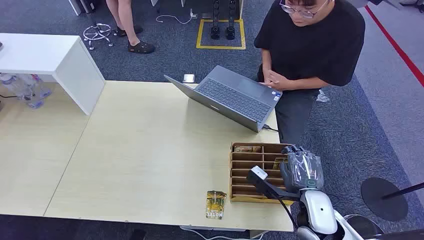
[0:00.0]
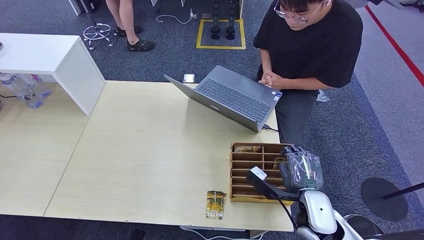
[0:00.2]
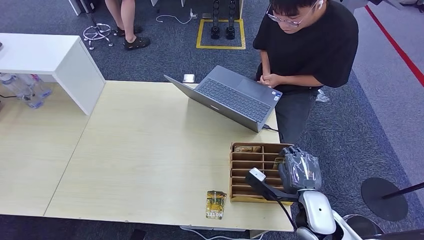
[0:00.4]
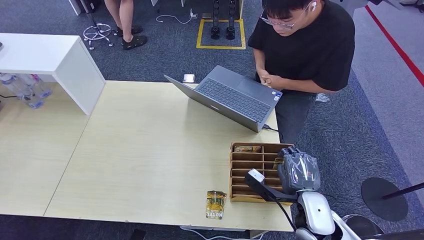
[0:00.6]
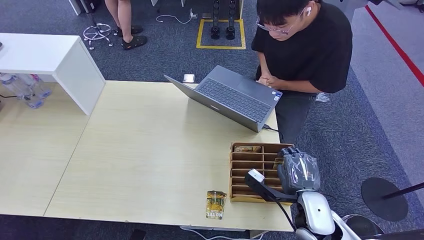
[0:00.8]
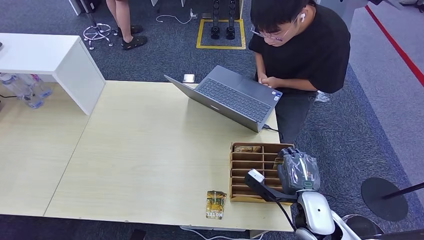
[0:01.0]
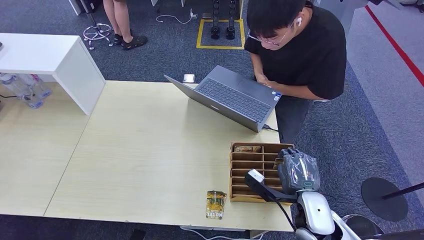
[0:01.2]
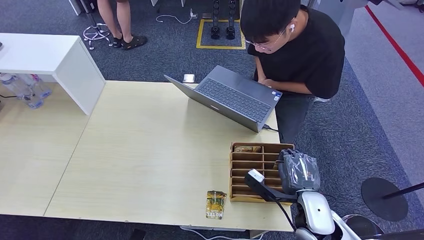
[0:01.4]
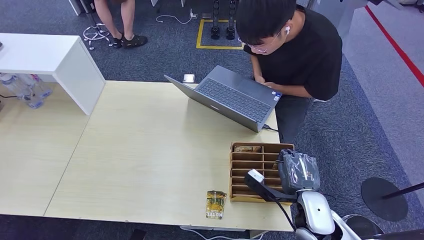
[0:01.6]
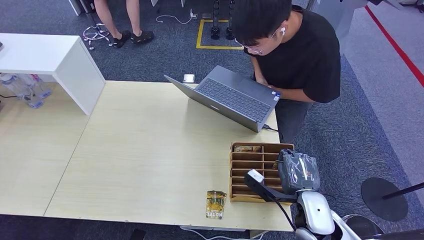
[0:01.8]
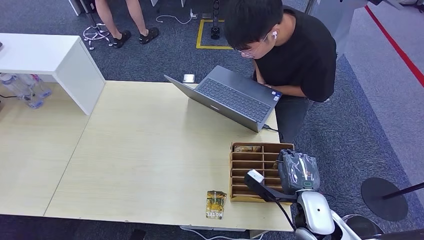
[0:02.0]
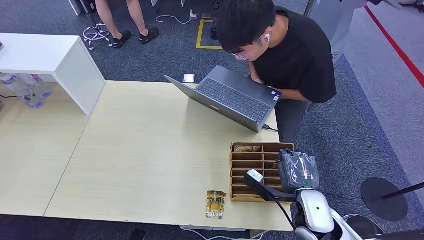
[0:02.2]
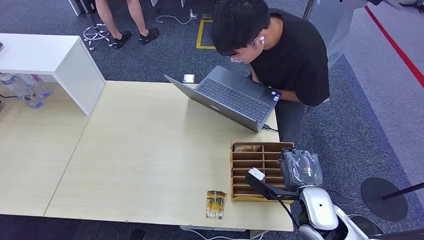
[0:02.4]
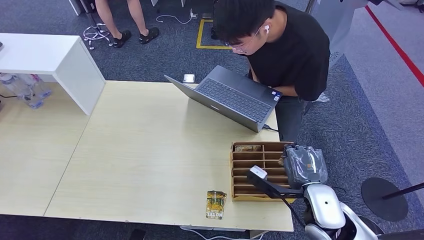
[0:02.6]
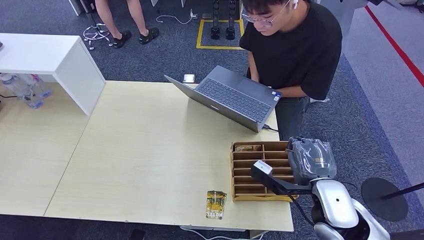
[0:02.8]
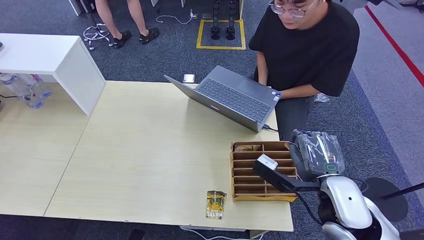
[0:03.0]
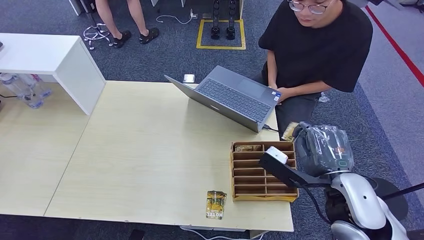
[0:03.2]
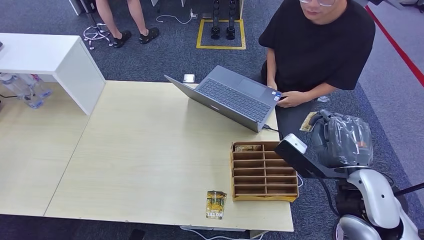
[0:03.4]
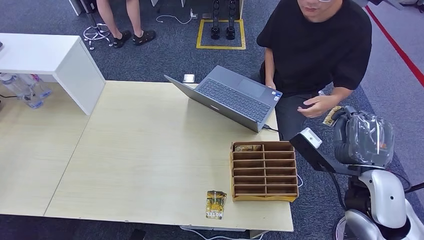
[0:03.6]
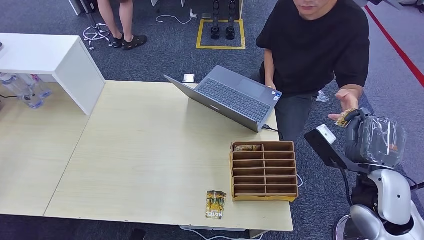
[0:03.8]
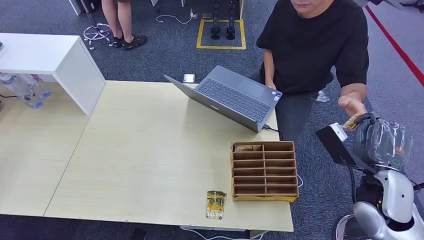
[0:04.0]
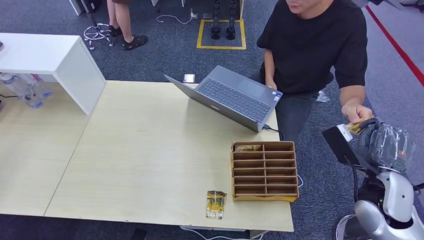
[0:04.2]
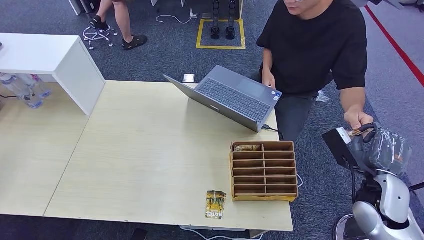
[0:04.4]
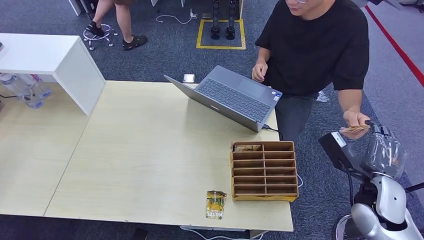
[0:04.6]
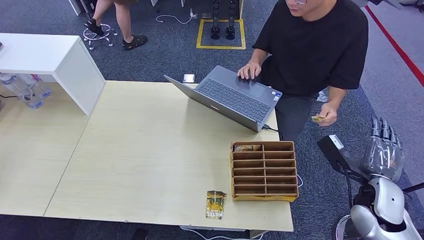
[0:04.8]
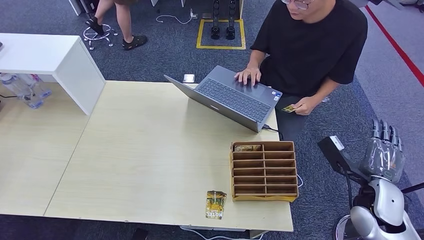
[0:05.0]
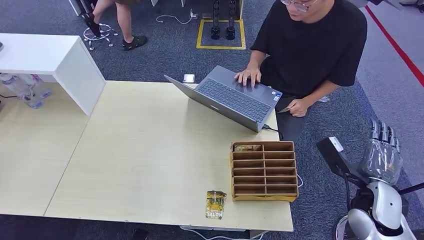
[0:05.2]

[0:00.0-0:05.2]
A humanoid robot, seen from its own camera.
Step, 0:00.0 to 0:02.6: Pick up the key card from the card box.
Step, 0:03.0 to 0:05.0: Hand the key card to the target.
0:01.8 to 0:03.4: The right hand heads upward, covering roughly 15 cm.
0:03.4 to 0:05.2: The right hand travels downward and to the right by approximately 15 cm.

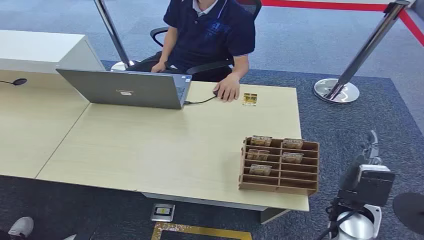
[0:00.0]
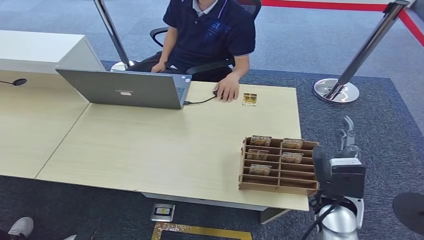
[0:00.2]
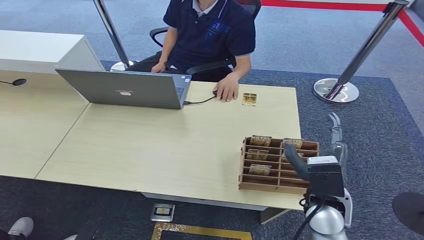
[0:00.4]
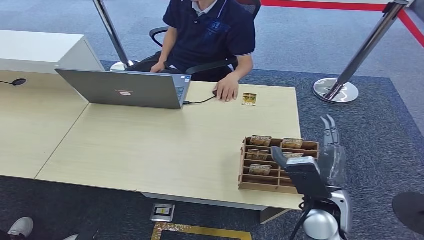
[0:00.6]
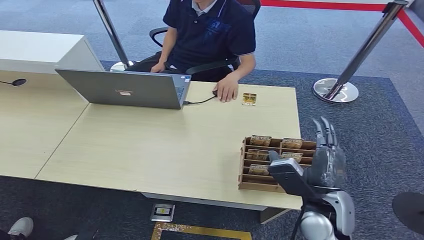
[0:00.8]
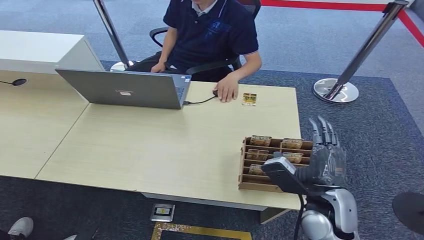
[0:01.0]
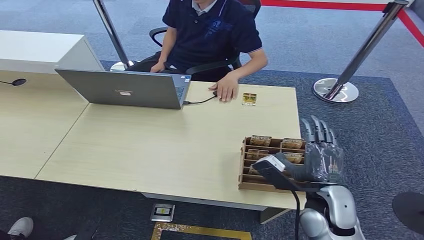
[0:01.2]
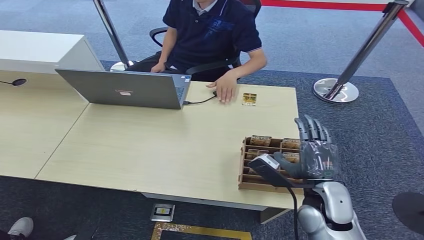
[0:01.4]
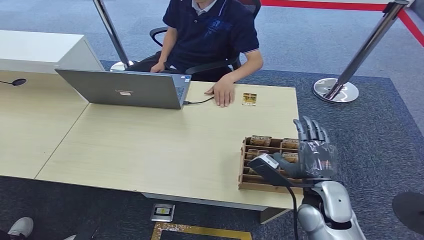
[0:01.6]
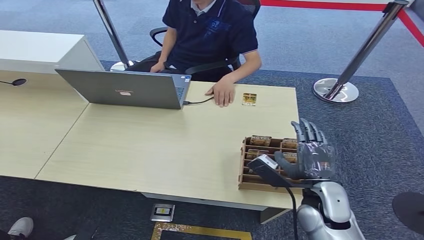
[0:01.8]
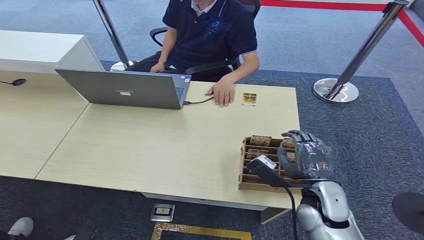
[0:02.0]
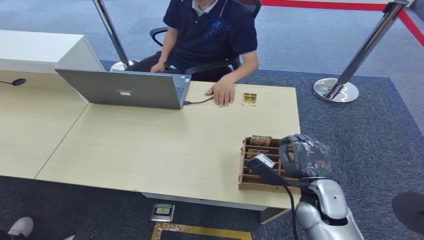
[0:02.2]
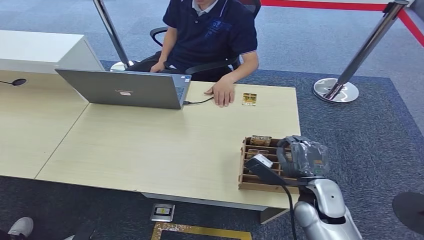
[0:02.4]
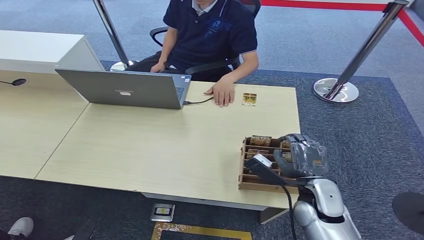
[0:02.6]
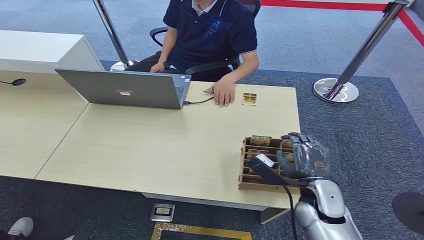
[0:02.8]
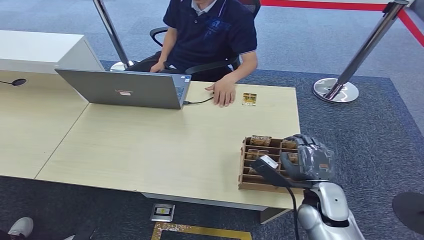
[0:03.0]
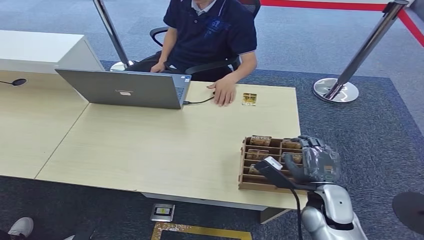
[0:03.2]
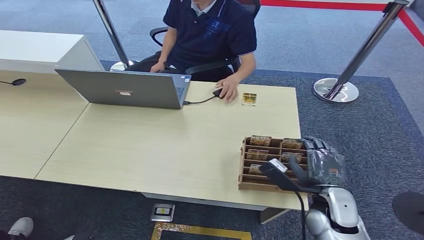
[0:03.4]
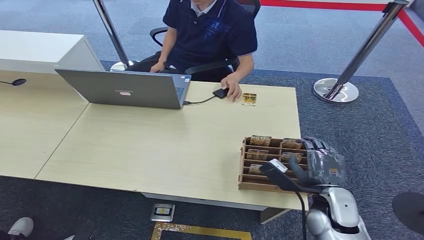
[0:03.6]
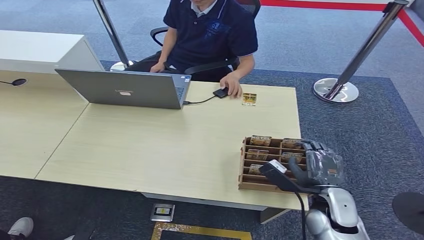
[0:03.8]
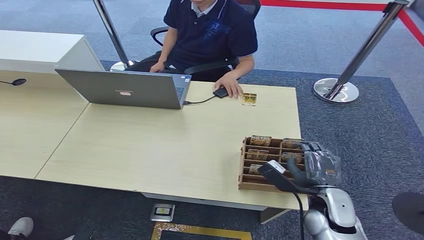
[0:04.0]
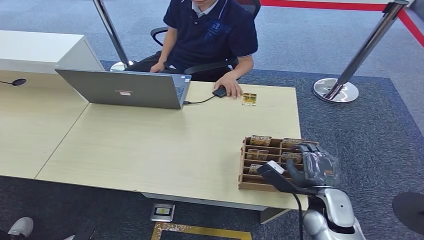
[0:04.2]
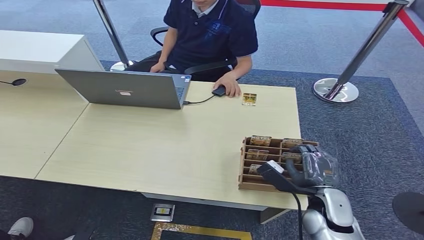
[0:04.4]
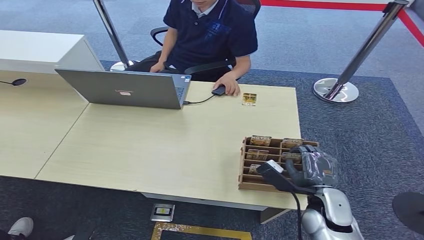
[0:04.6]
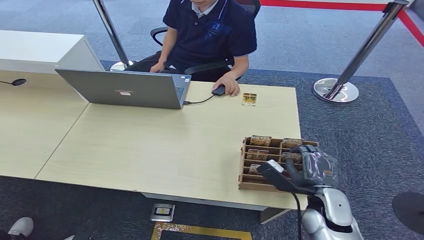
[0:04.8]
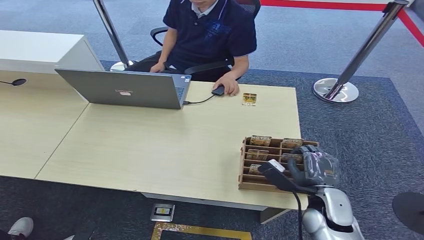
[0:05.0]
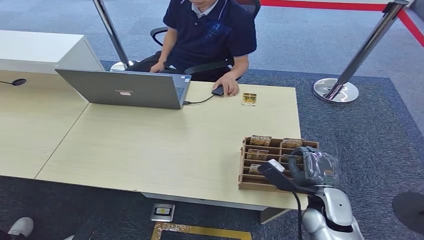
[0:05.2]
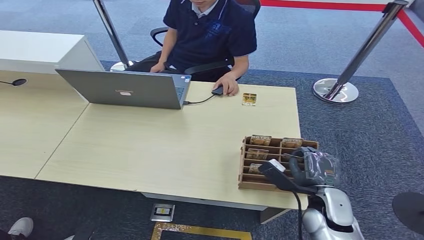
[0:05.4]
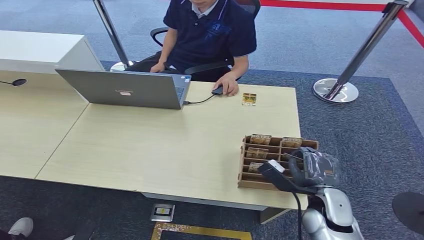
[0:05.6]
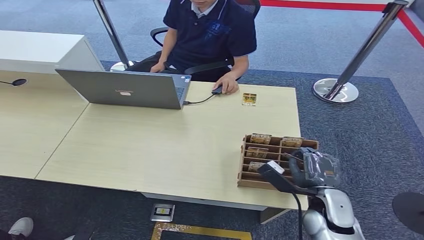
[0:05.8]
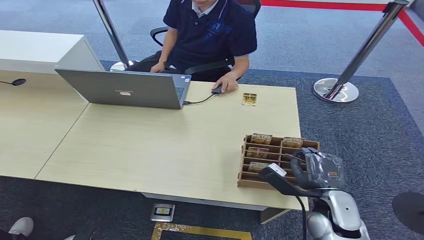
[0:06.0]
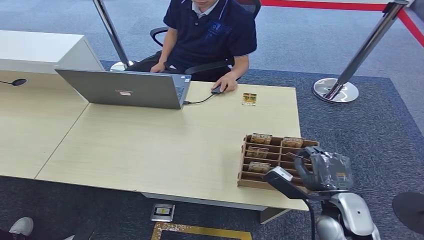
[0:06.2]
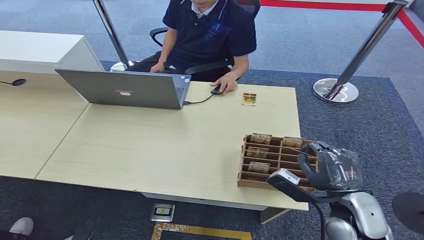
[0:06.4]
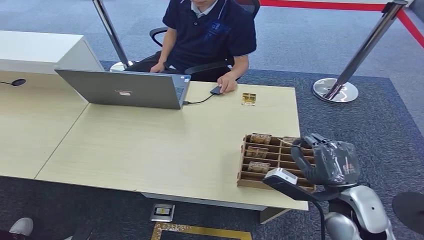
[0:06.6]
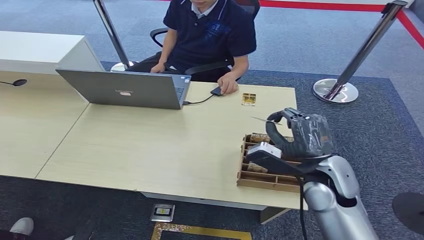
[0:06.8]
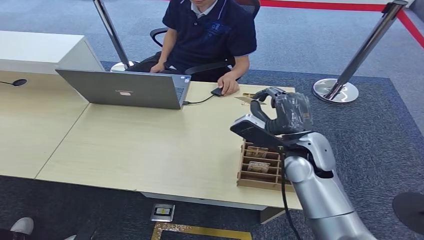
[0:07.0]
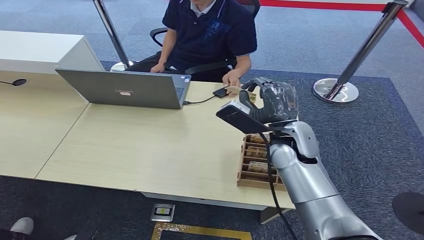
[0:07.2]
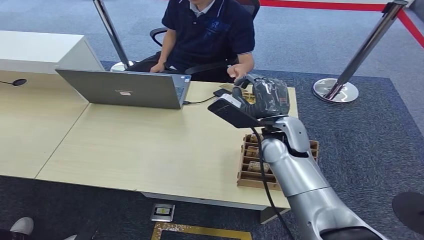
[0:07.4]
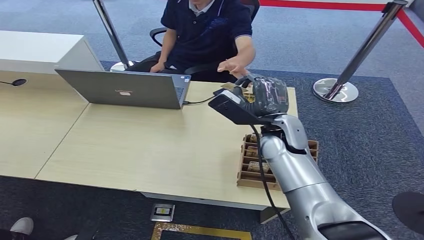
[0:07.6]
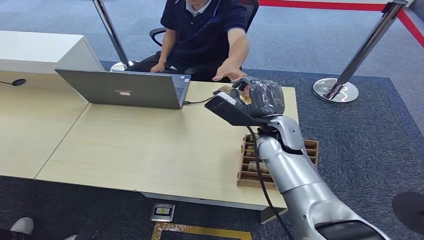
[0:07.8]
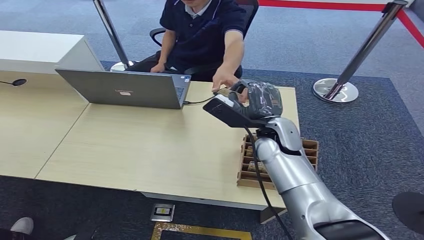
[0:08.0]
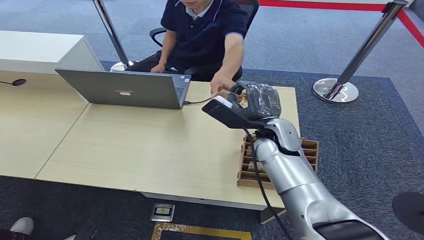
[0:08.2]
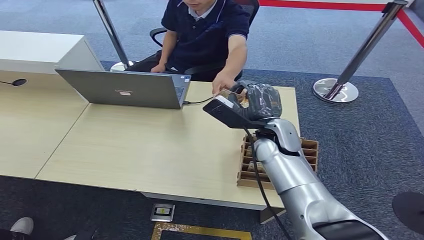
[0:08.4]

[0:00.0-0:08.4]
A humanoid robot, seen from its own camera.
Step, 0:00.0 to 0:07.0: Pick up the key card from the card box.
Step, 0:07.2 to 0:08.4: Hand the key card to the target.
0:01.4 to 0:04.2: The hands move only a little.
0:04.2 to 0:05.6: The two hands keep their place.
0:05.6 to 0:07.0: The right hand heads upward, forward and to the left, covering about 20 cm.
0:07.0 to 0:08.4: The right hand shifts by roughly 5 cm.

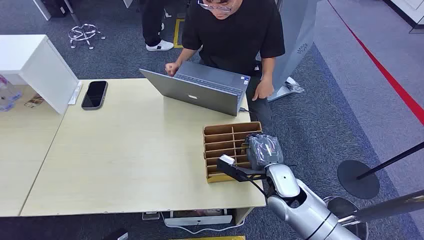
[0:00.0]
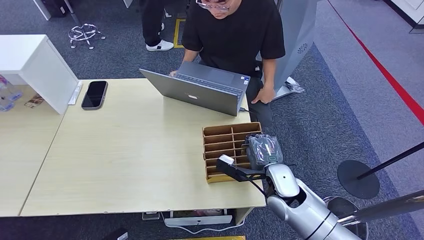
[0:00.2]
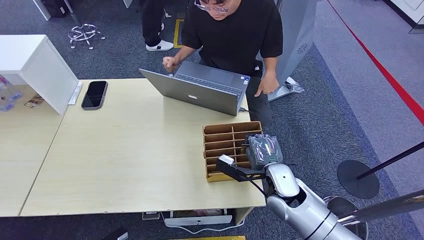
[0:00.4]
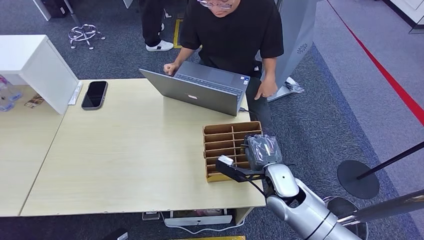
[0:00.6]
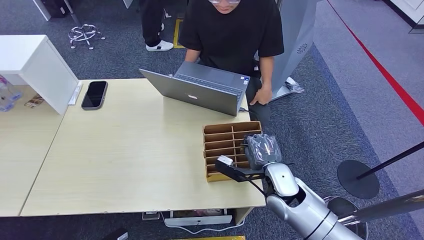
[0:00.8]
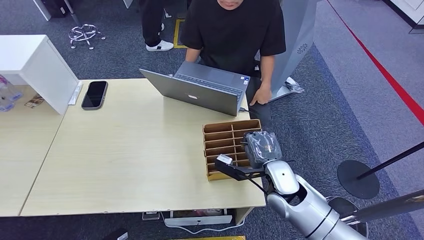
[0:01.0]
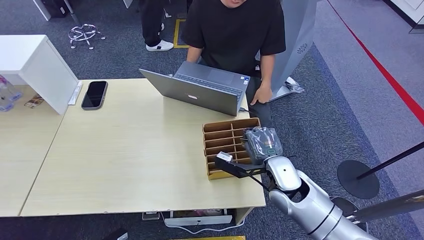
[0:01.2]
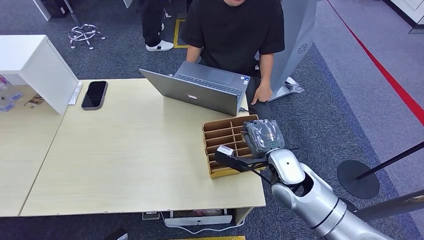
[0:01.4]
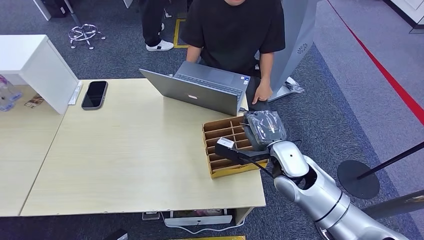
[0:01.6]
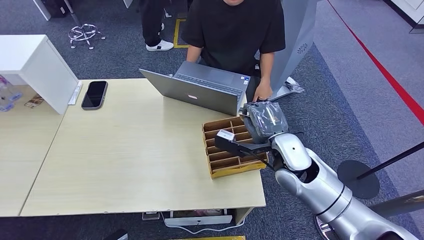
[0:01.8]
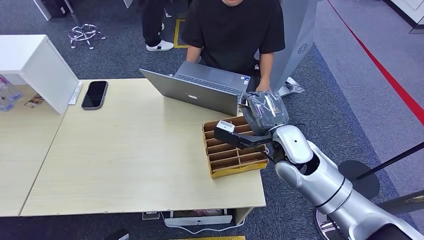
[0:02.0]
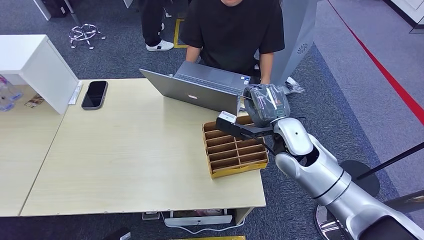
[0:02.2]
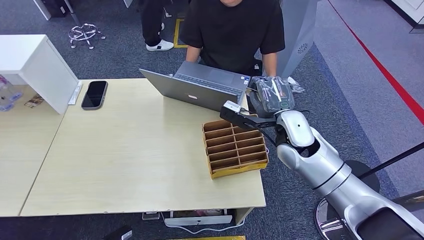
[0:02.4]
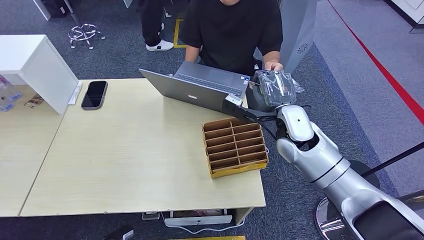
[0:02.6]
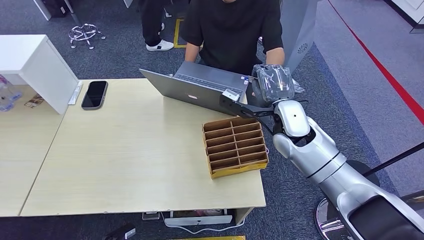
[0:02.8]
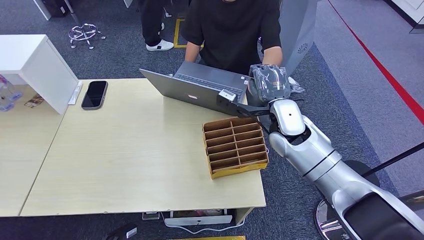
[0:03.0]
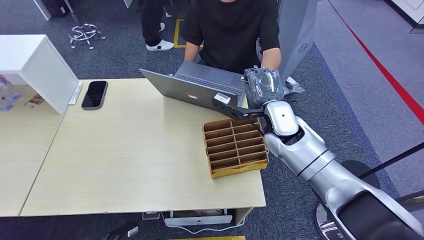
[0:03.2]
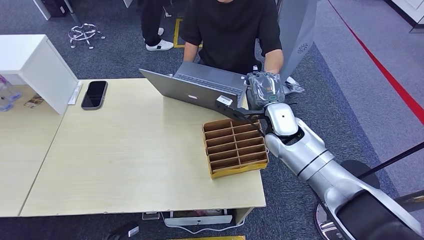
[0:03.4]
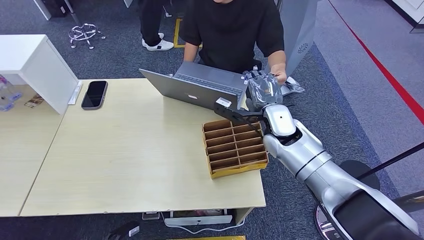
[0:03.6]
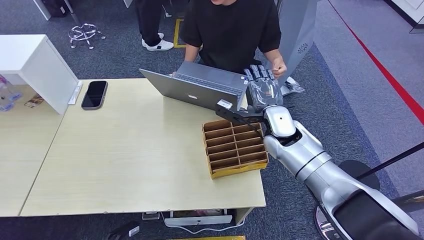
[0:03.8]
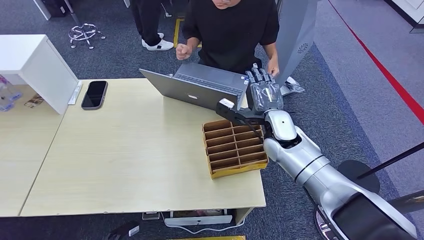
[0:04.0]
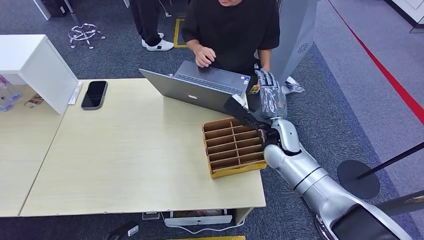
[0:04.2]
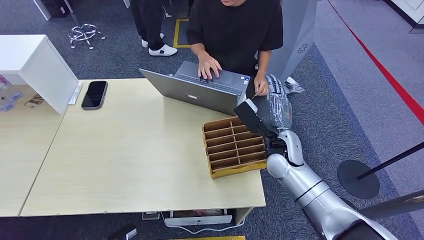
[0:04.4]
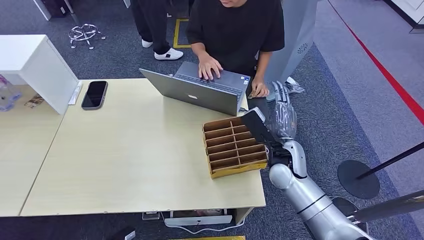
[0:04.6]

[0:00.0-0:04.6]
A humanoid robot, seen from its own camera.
Step, 0:00.0 to 0:02.4: Pick up the key card from the card box.
Step, 0:02.6 to 0:04.4: Hand the key card to the target.
0:01.6 to 0:03.0: The right hand moves forward and upward, roughly 10 cm.
0:03.0 to 0:04.6: The right hand goes about 10 cm downward and backward.
